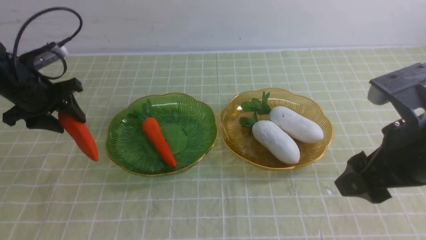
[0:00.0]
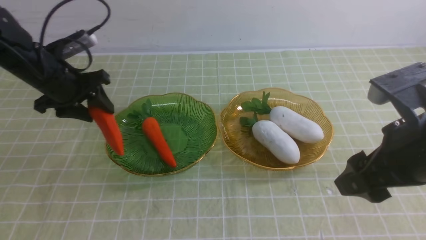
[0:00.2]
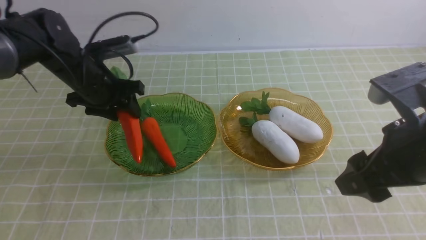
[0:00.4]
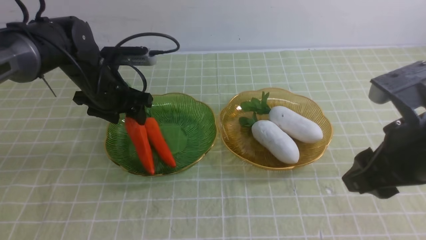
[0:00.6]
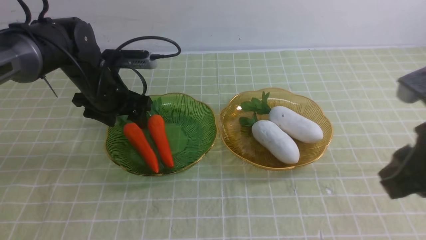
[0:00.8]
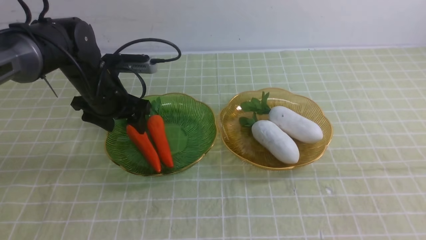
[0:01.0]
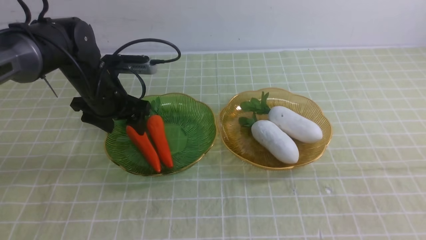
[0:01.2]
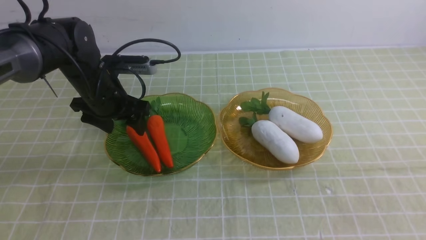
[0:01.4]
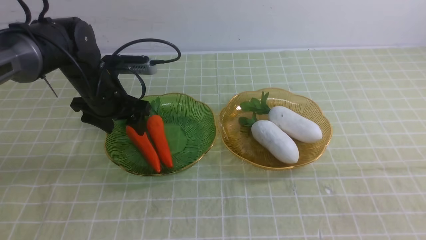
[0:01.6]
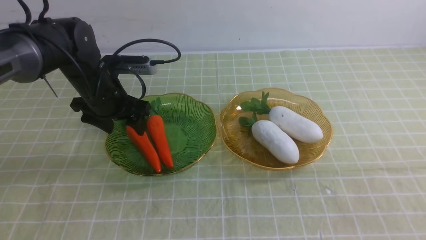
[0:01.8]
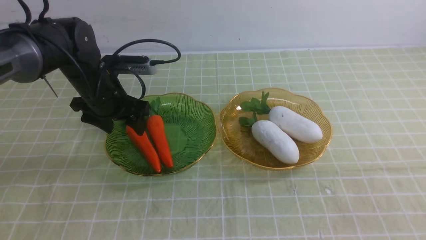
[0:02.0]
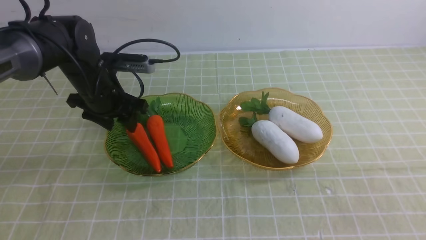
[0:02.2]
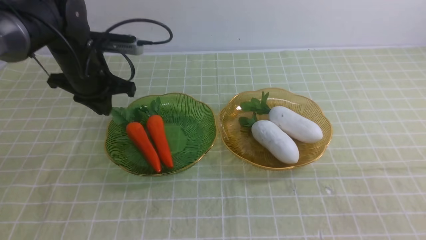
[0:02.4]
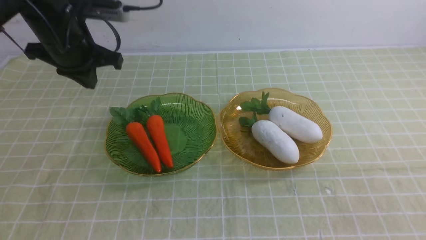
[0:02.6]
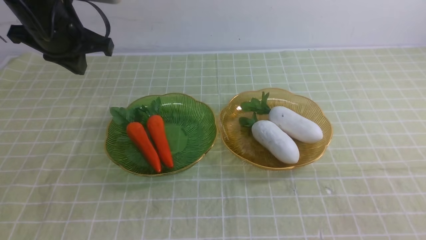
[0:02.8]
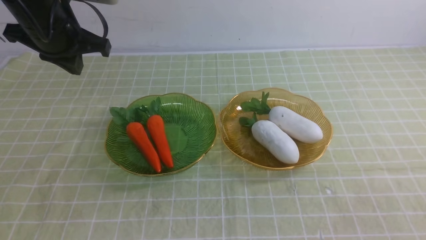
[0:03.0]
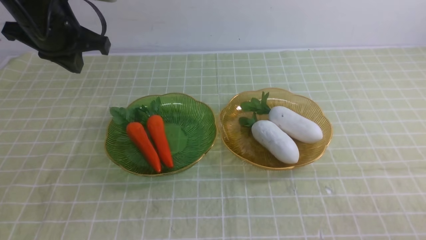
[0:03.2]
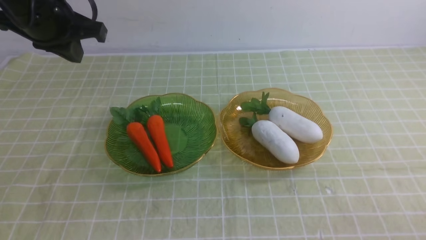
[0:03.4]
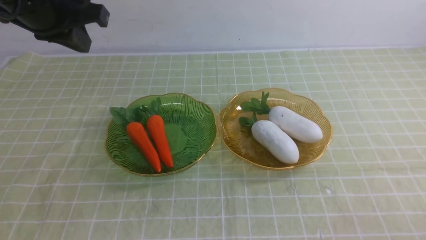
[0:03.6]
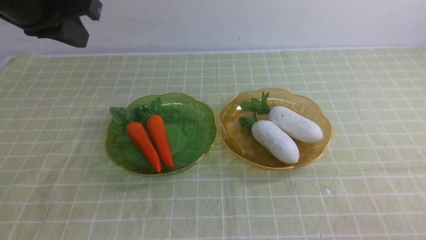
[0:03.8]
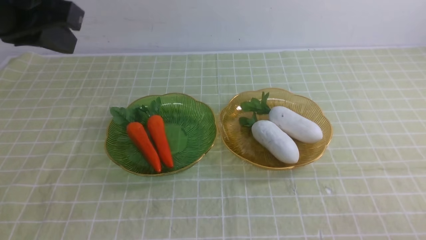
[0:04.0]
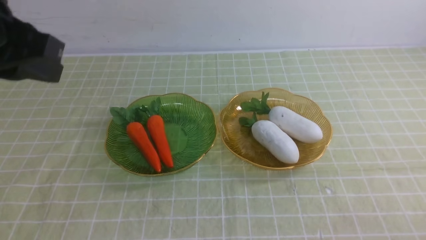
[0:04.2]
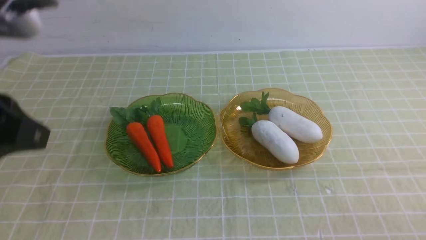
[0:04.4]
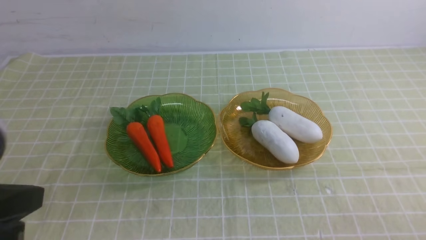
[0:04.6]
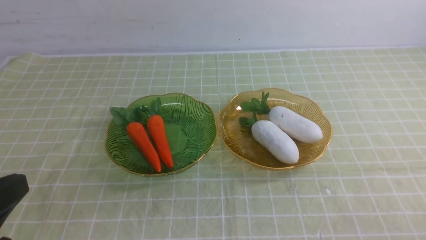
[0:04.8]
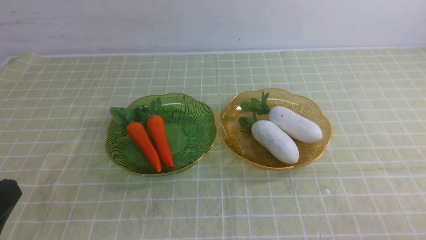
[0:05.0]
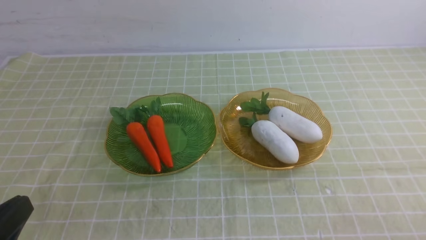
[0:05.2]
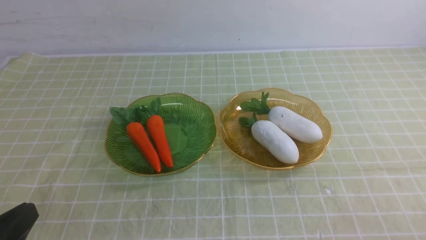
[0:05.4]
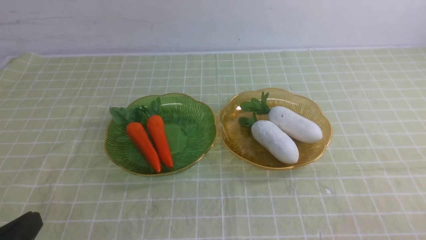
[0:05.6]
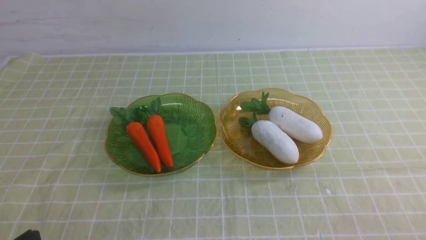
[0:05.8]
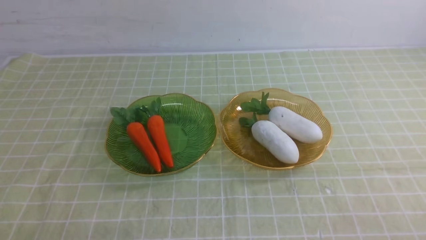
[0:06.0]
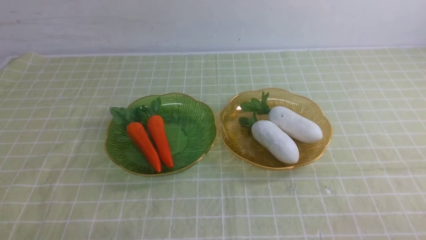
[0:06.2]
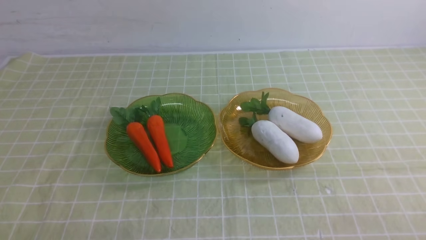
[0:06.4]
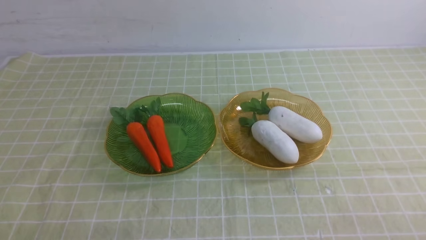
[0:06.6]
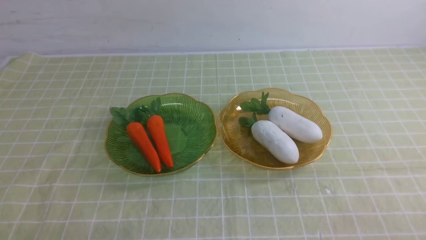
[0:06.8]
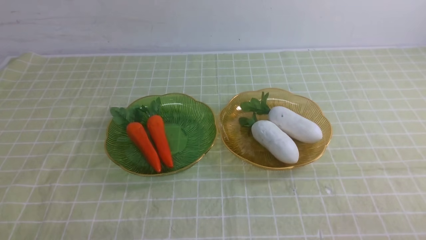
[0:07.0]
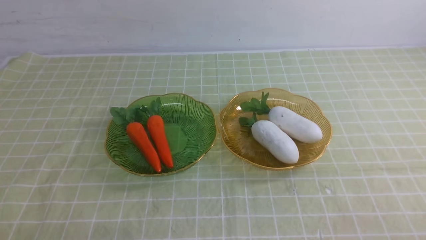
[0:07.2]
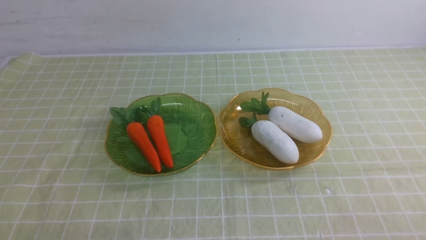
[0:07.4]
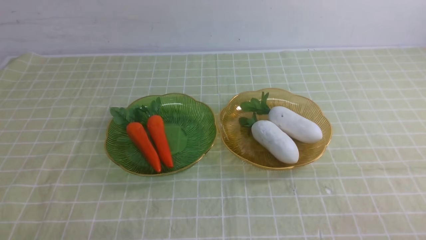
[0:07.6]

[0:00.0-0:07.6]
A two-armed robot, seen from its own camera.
0:00.0 to 0:01.6: The left gripper moves to the right, about 10 cm; the right gripper travels backward and to the right by roughly 15 cm, and closes its fingers.
0:01.6 to 0:03.0: The left gripper moves upward, approximately 15 cm, and closes. The right gripper shifts roughly 10 cm downward.
0:03.0 to 0:04.6: The left gripper heads backward, covering approximately 30 cm.
0:04.6 to 0:06.0: The left gripper goes roughly 20 cm downward.
0:06.0 to 0:07.6: The two grippers keep their place.
